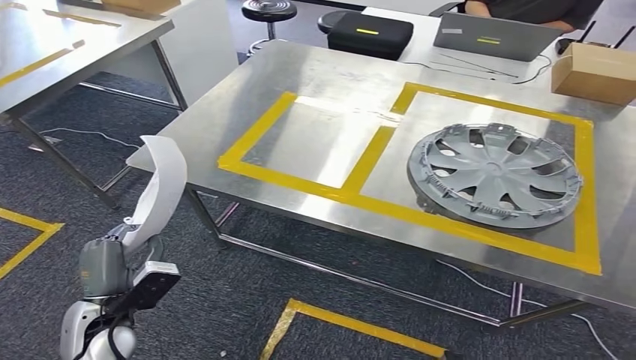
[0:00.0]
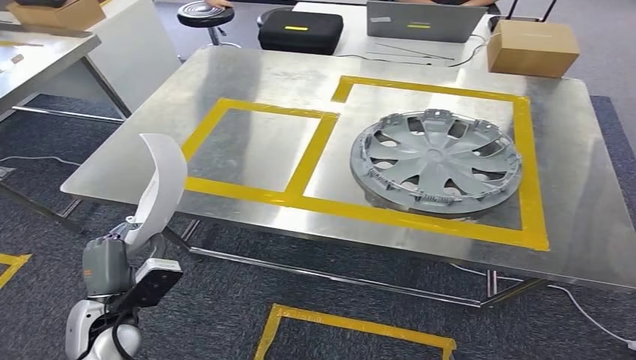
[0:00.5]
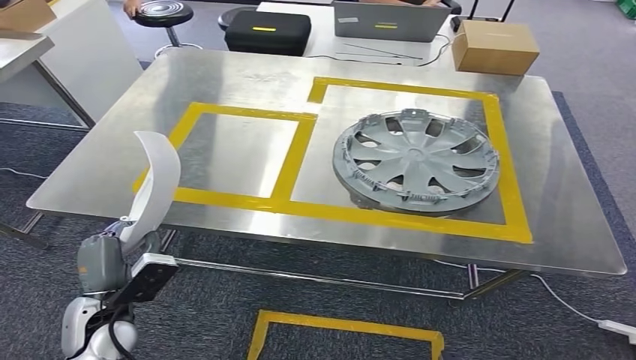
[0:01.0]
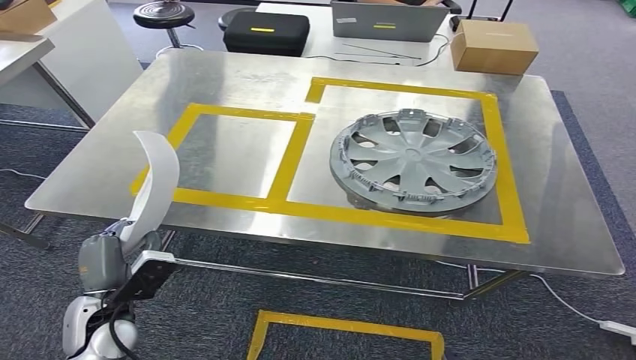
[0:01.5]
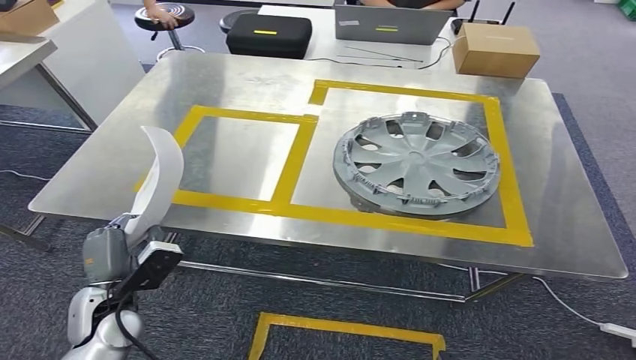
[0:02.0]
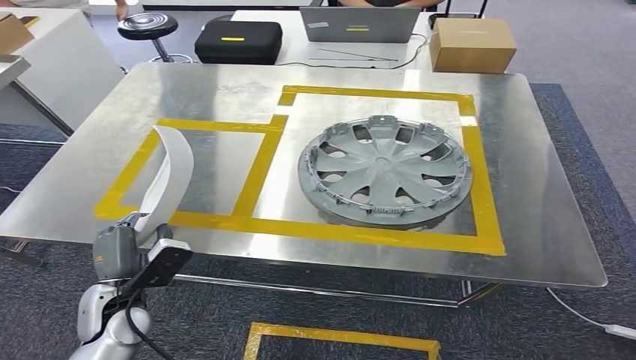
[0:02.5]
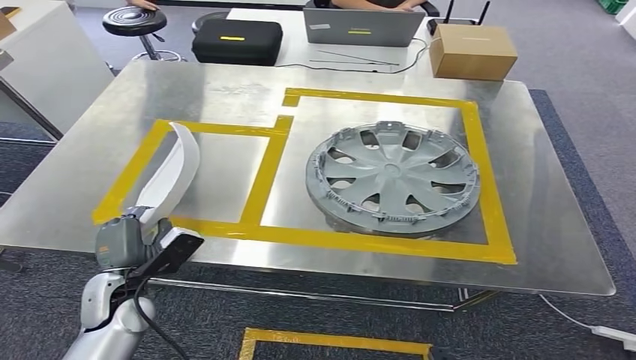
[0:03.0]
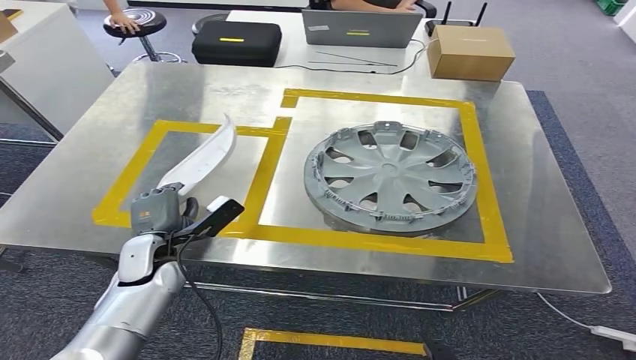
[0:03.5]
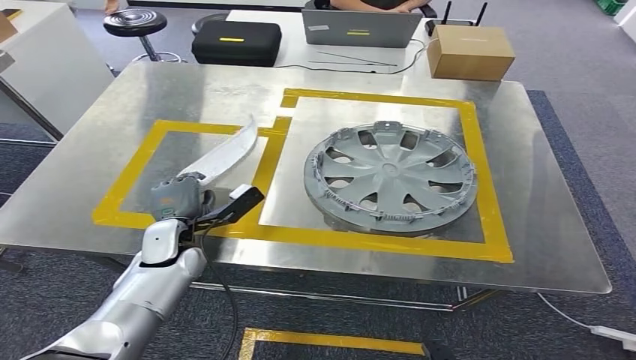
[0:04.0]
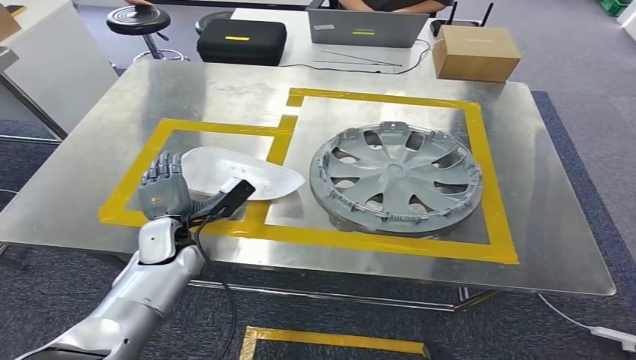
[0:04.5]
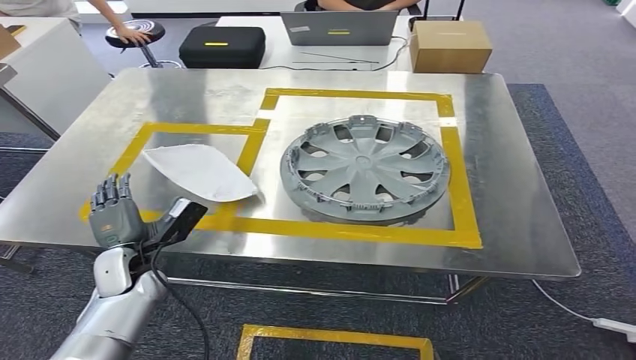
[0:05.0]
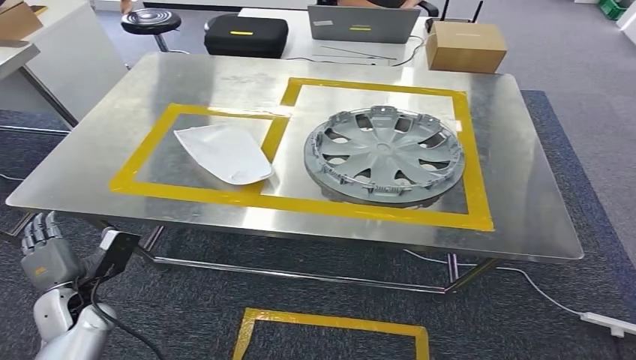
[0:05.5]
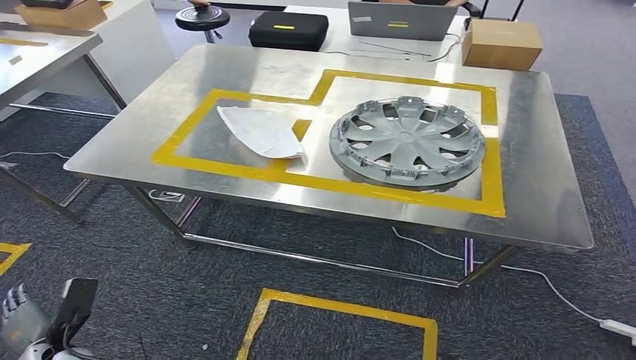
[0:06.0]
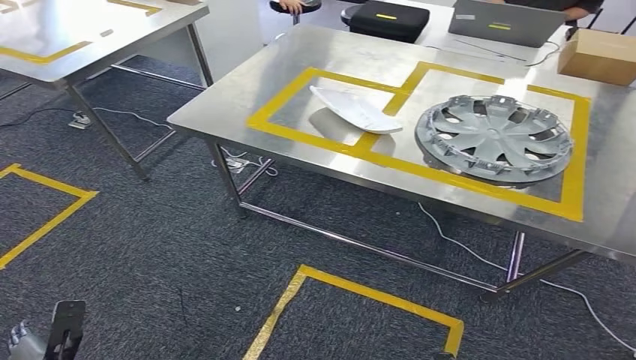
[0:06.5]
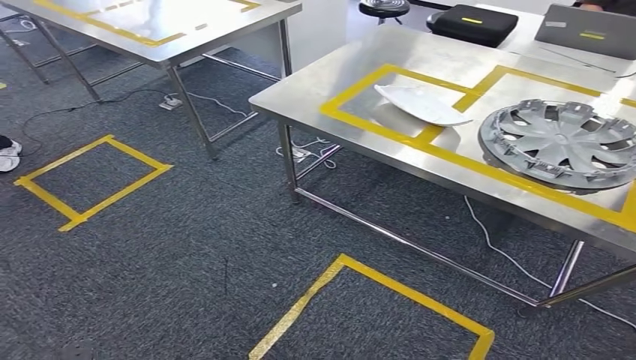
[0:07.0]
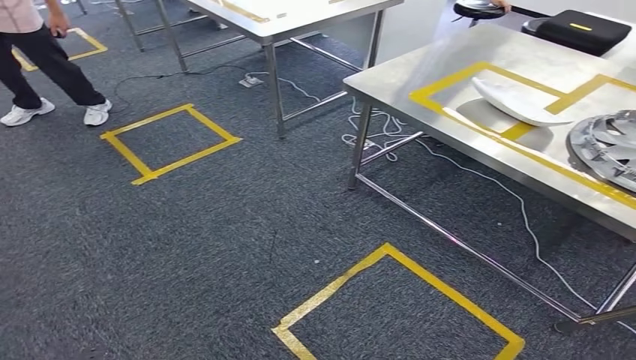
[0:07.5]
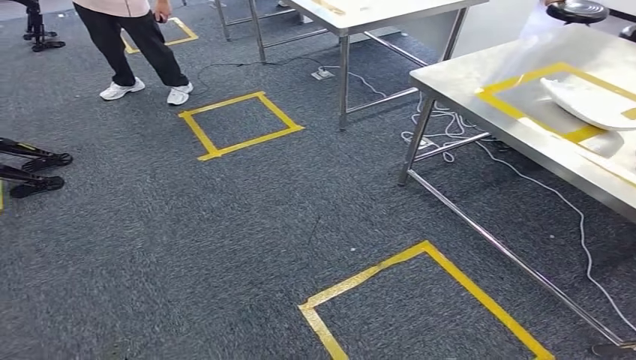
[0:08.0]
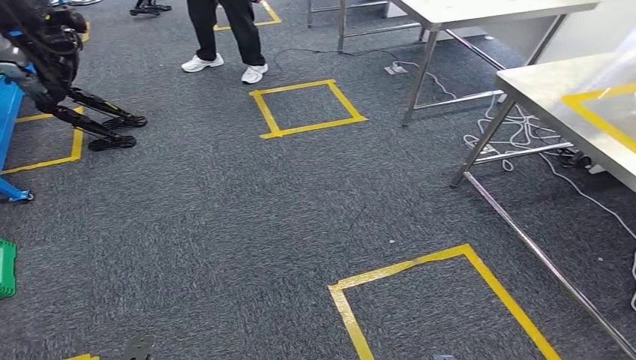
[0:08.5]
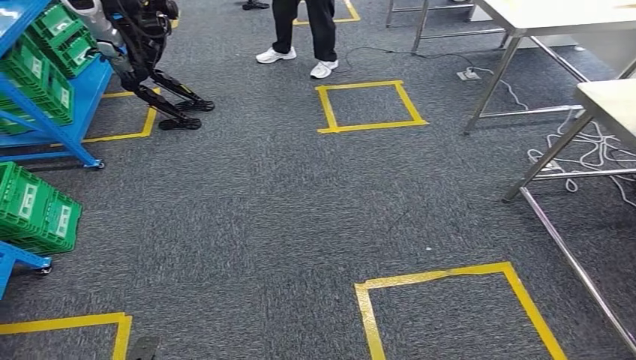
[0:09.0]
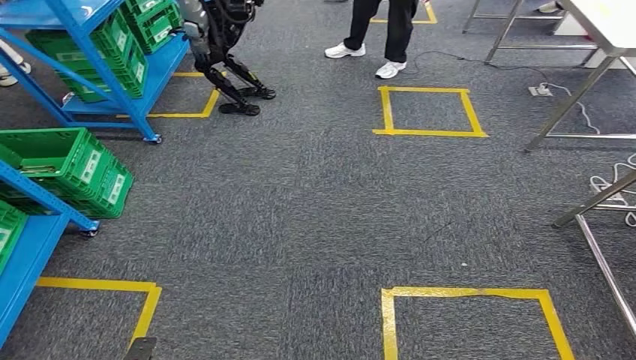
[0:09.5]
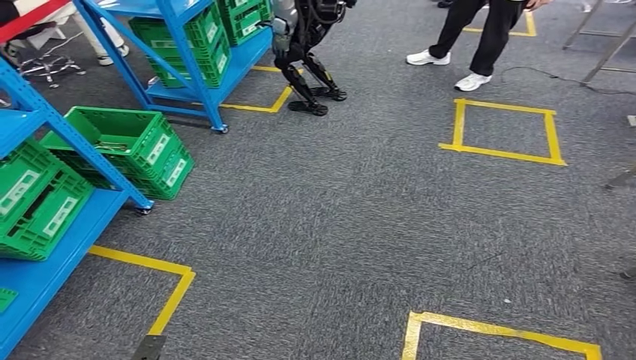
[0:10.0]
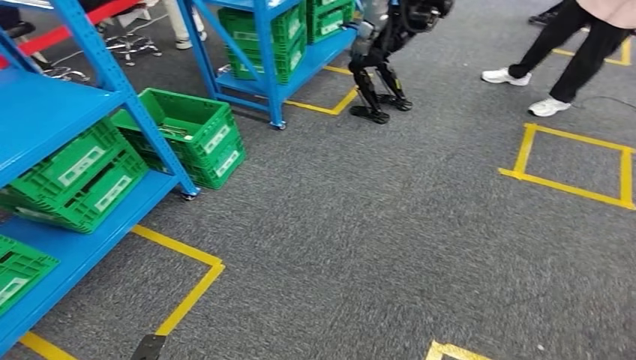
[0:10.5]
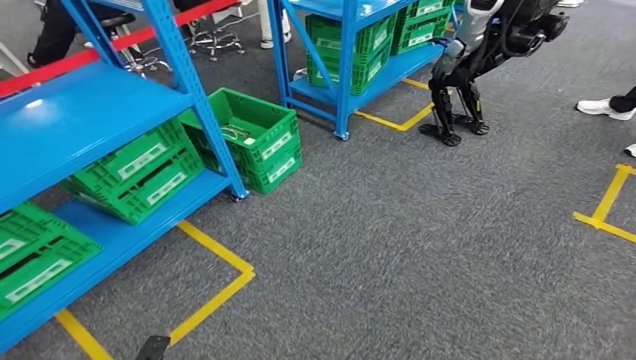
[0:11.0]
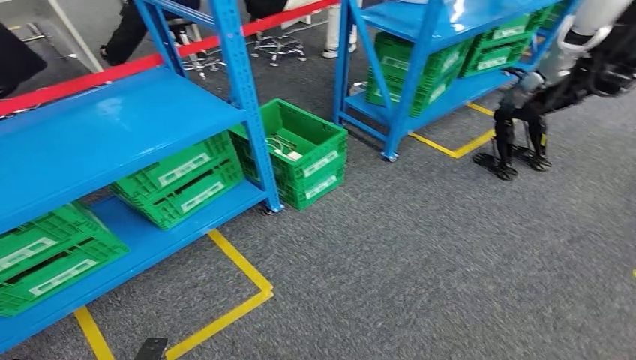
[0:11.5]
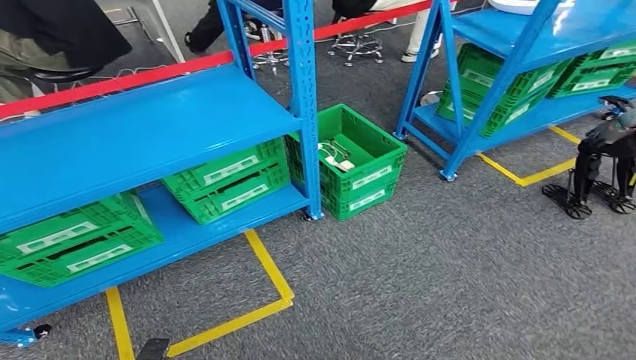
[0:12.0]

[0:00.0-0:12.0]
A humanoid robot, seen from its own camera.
Step, 0:01.5 to 0:05.0: Insert the small parts into the corresponding holes on the workbench.

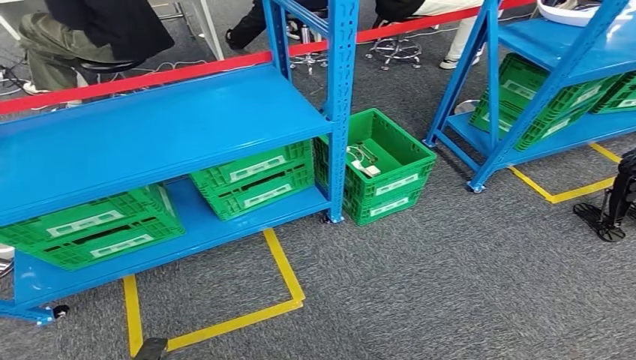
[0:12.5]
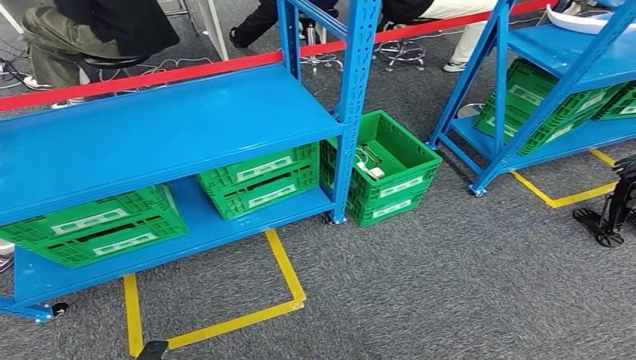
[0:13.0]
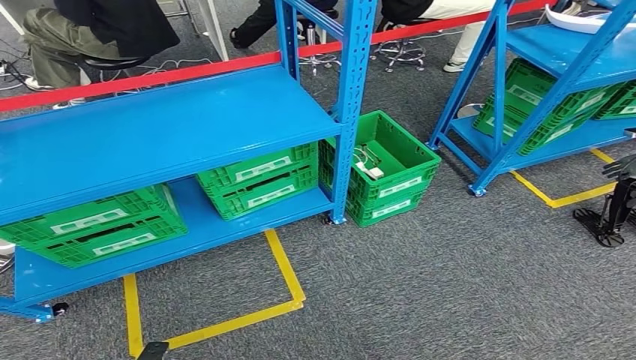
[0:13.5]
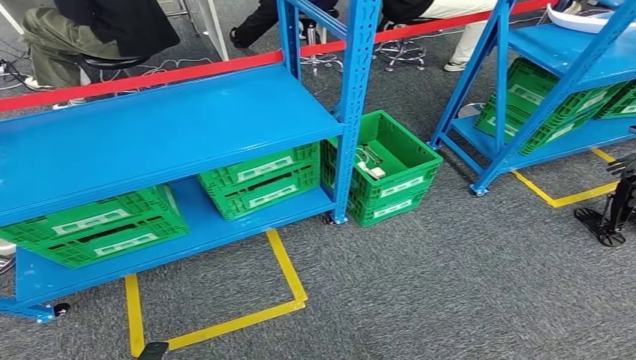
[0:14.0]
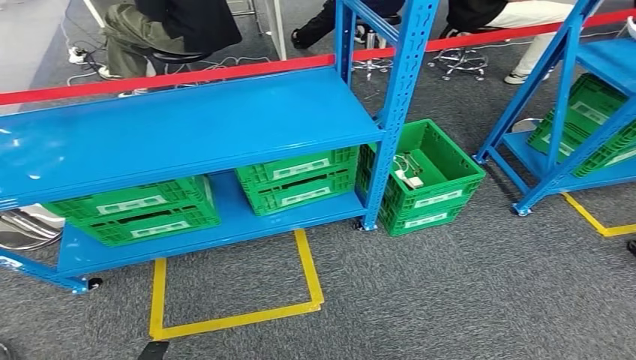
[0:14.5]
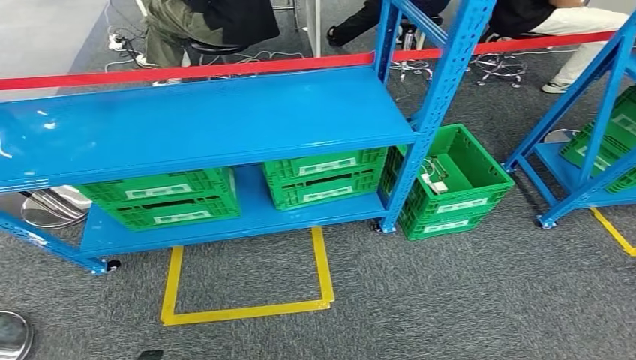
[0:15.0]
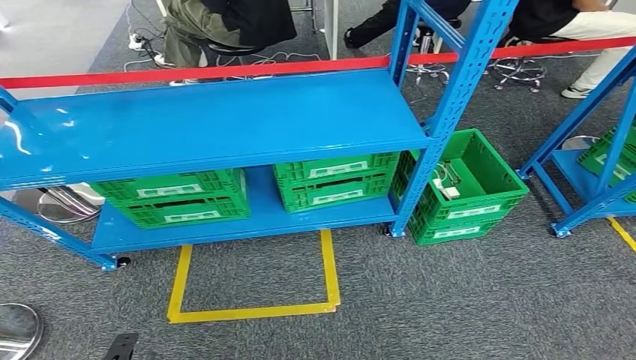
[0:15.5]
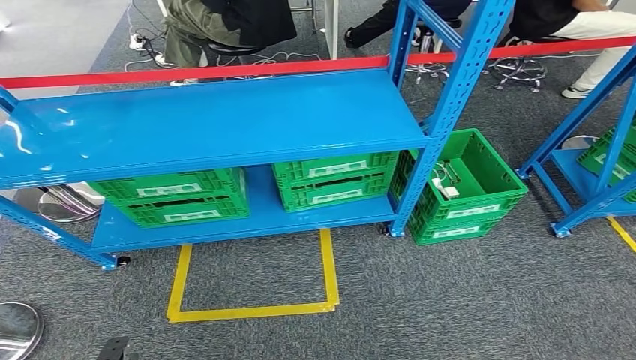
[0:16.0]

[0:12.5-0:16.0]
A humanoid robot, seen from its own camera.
Step, 0:12.5 to 0:16.0: Move to the initial position at the workbench.

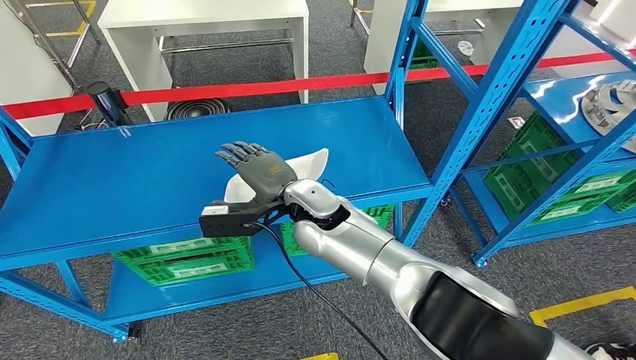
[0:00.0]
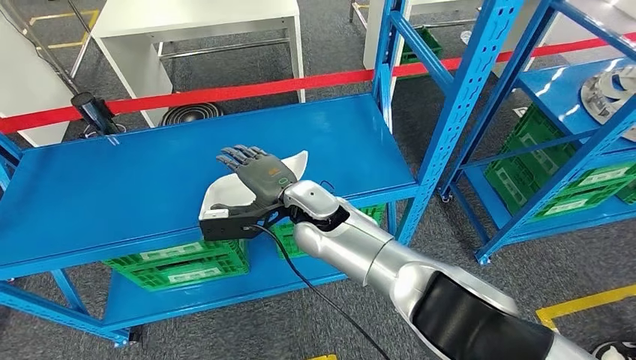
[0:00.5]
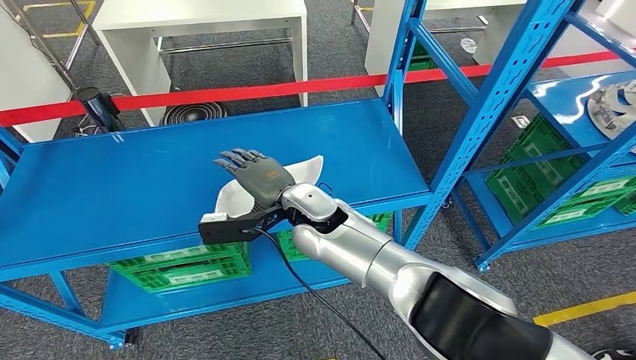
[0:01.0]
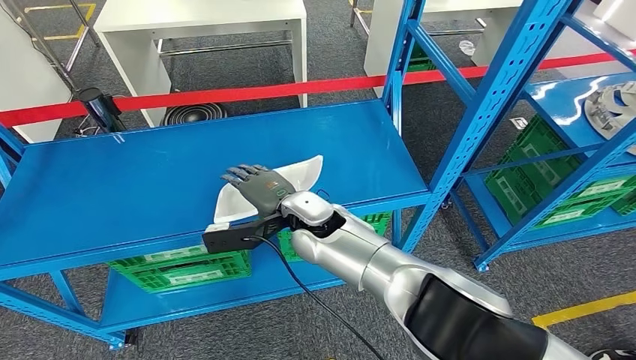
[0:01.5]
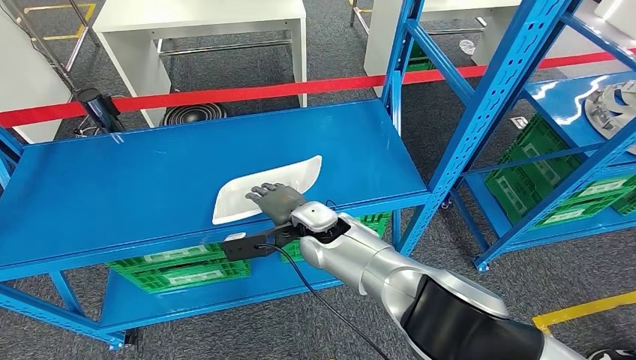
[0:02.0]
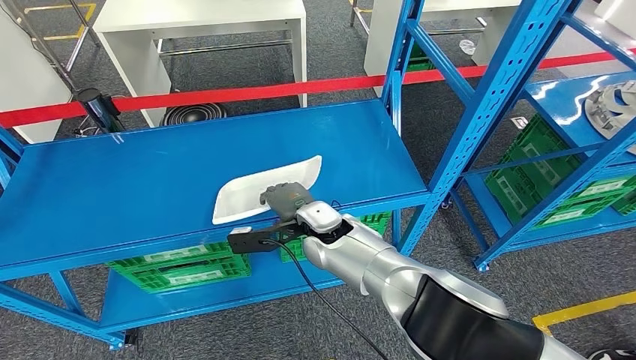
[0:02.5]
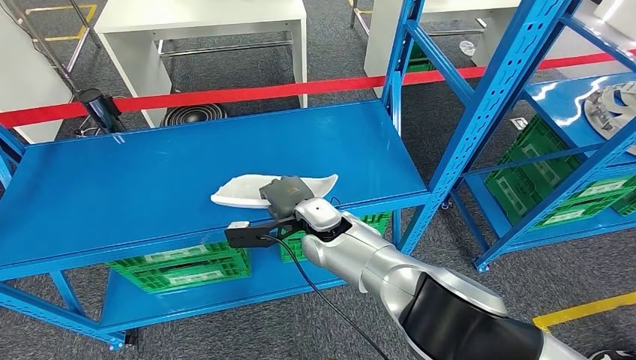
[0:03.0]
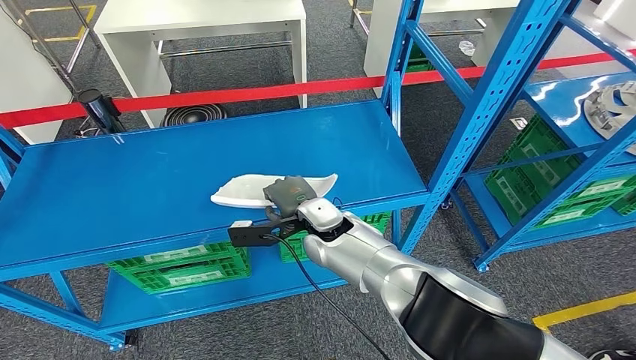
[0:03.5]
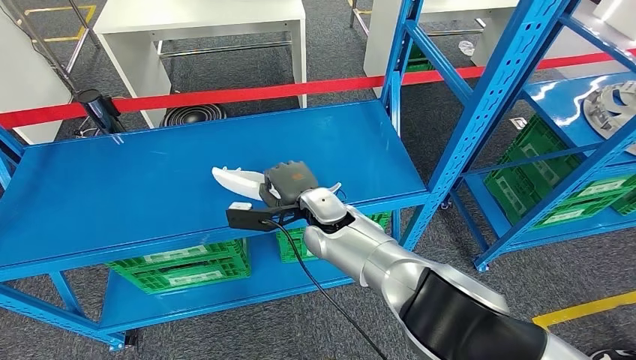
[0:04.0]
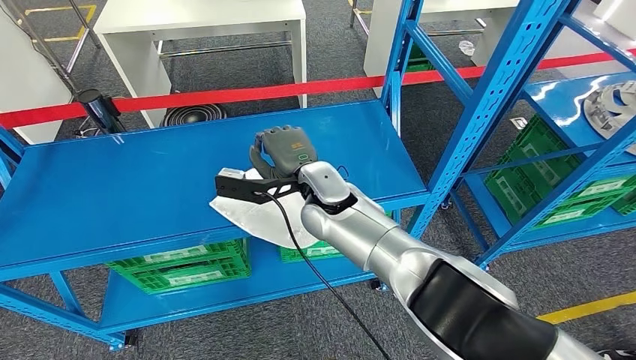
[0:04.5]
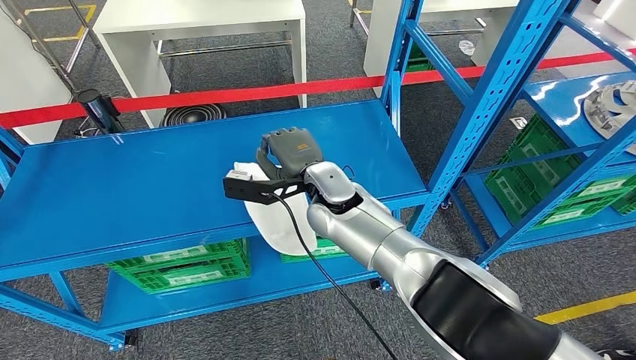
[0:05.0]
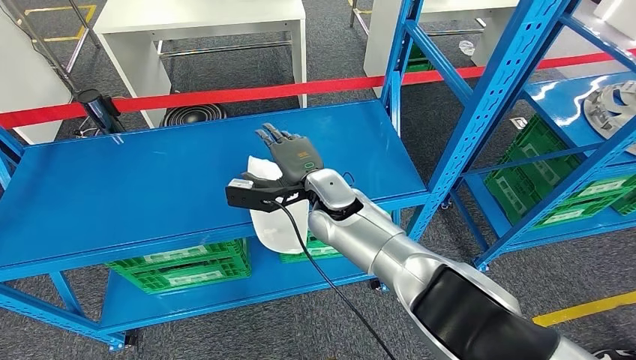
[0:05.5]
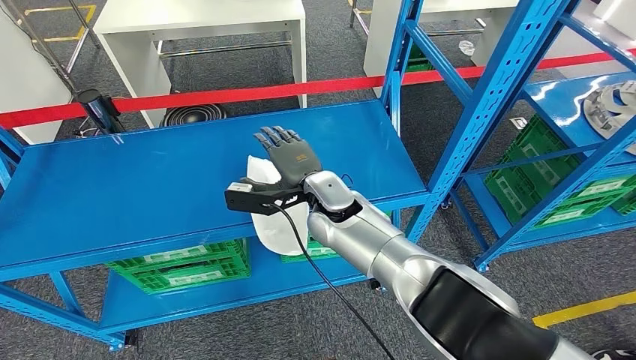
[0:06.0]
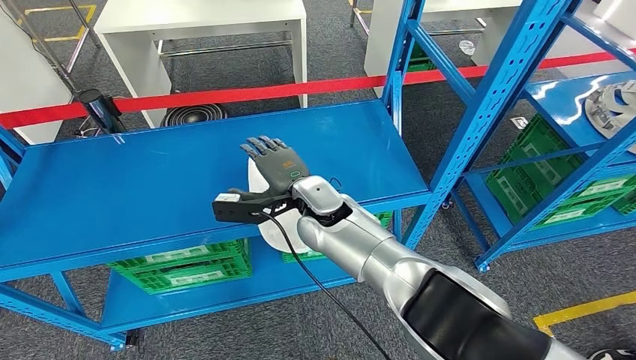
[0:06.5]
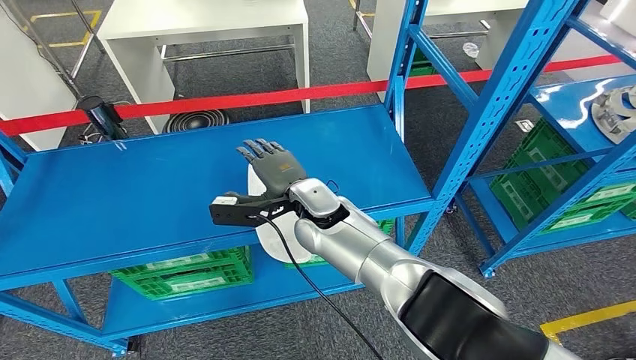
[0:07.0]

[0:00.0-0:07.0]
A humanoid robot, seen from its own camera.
0:02.0 to 0:03.5: The hands move only a little.
0:03.5 to 0:05.0: The right hand is displaced upward by some 5 cm.
